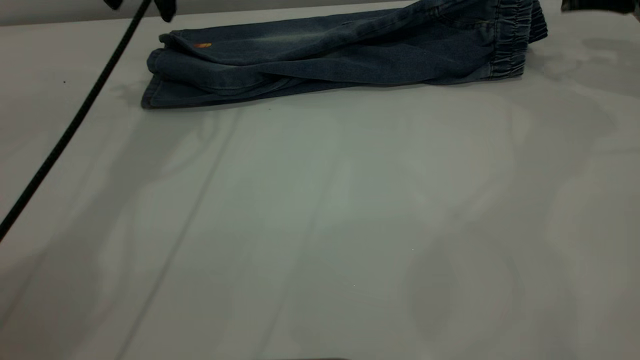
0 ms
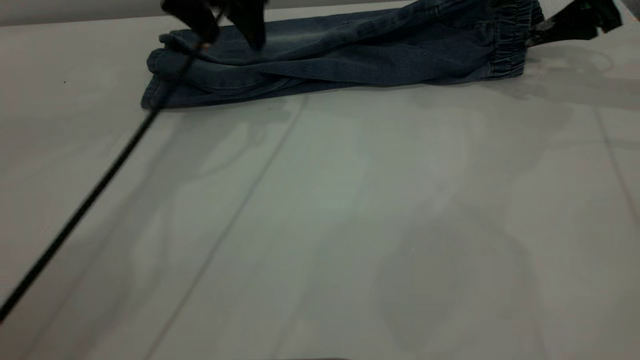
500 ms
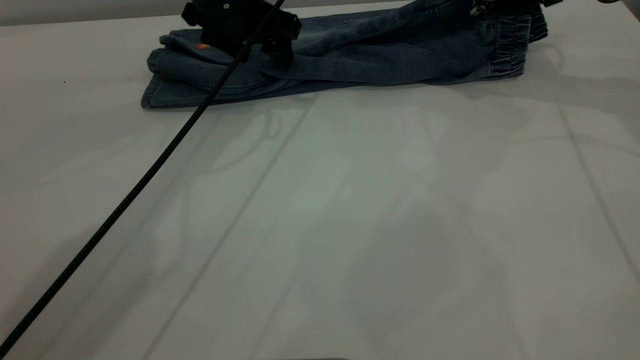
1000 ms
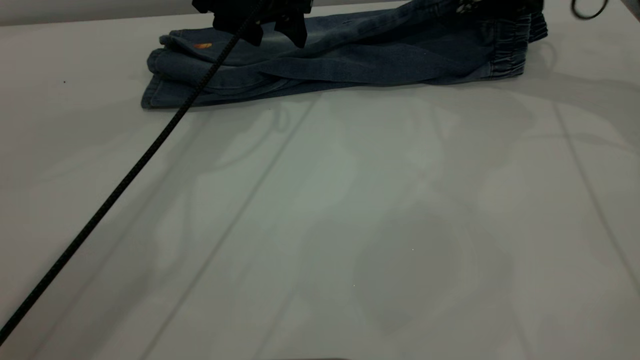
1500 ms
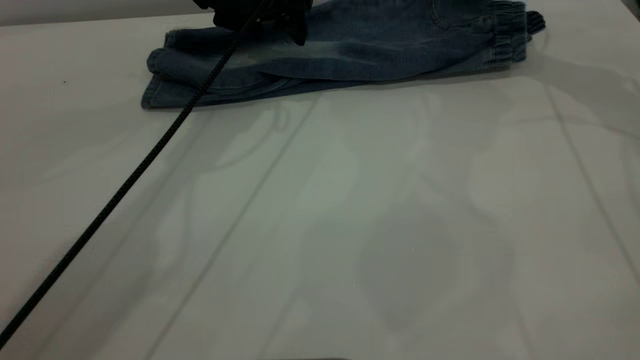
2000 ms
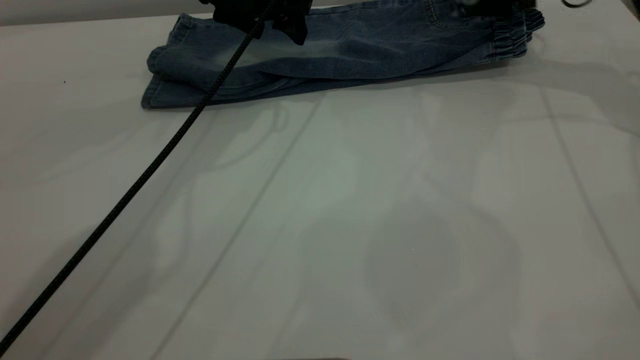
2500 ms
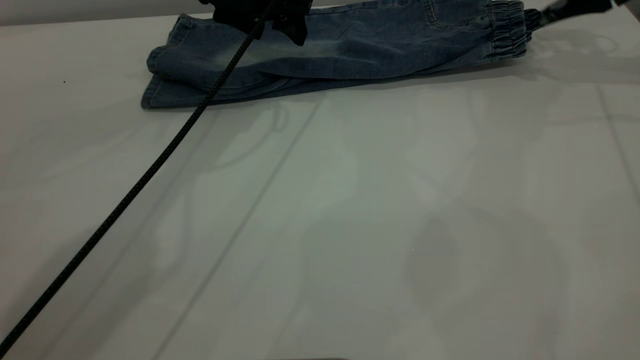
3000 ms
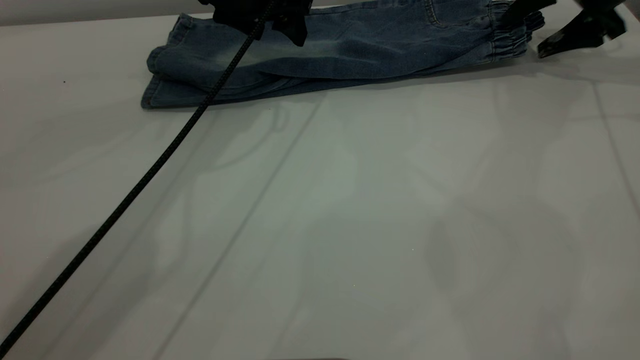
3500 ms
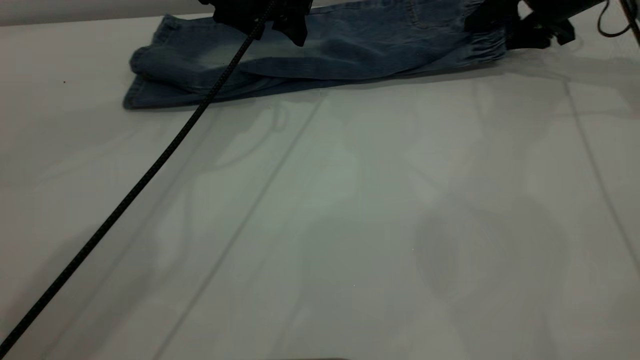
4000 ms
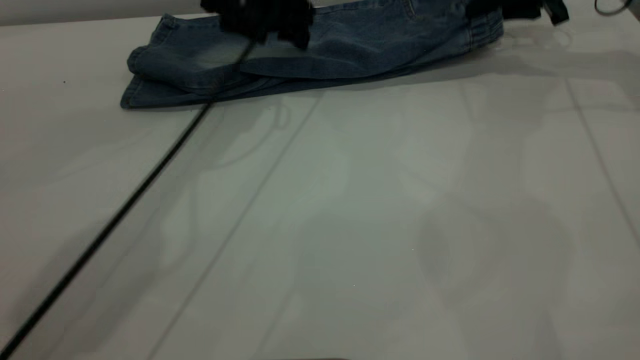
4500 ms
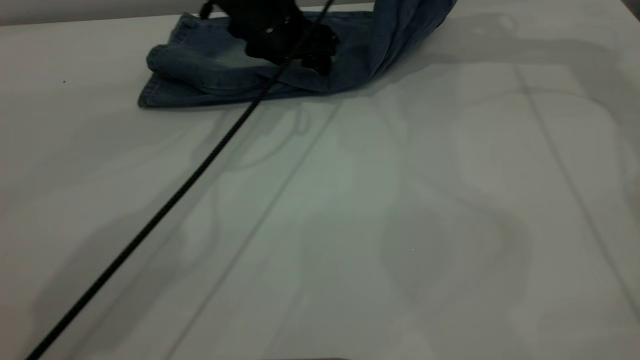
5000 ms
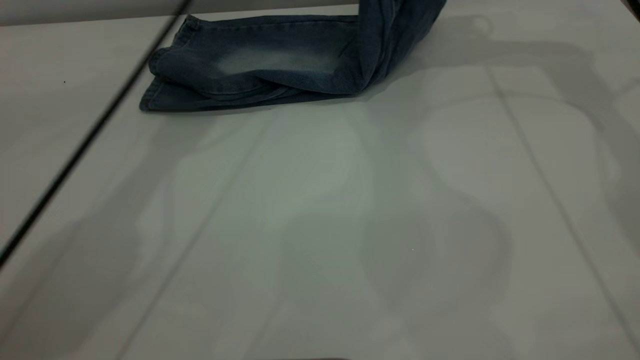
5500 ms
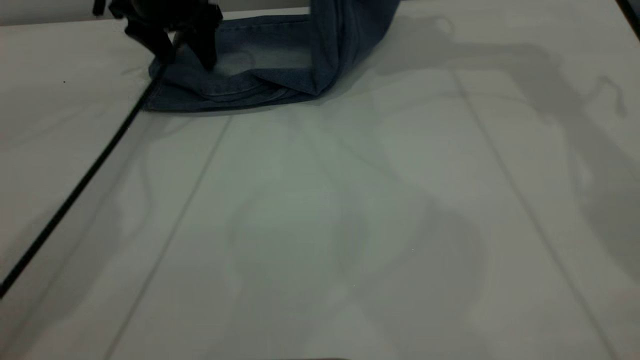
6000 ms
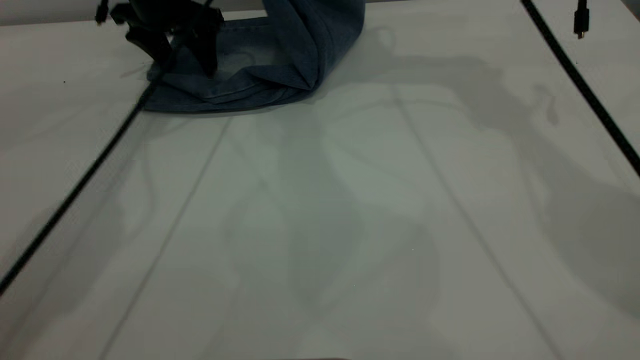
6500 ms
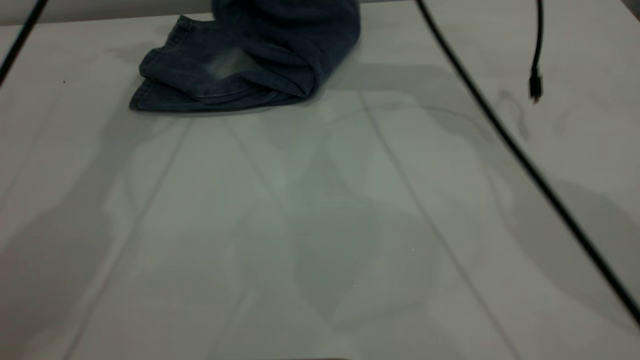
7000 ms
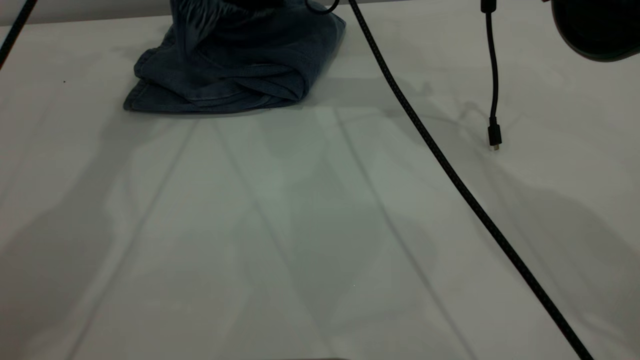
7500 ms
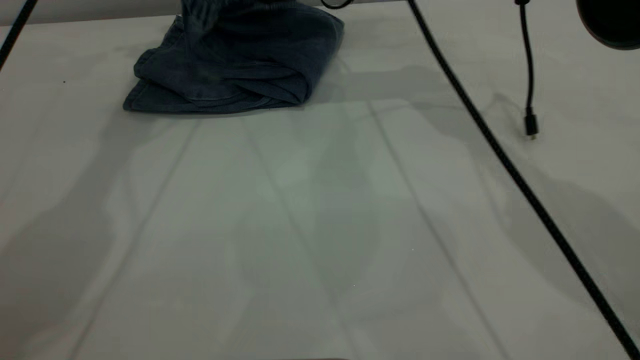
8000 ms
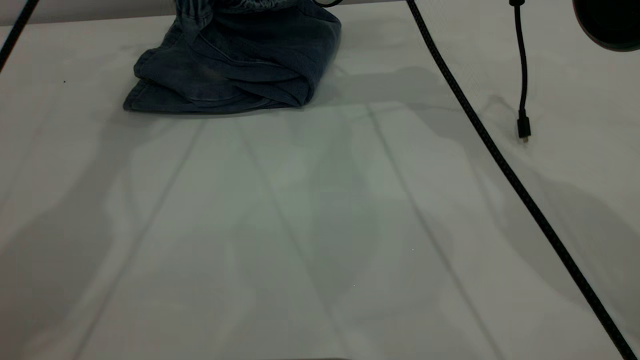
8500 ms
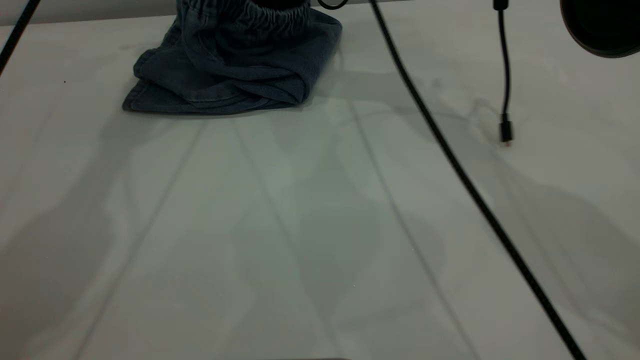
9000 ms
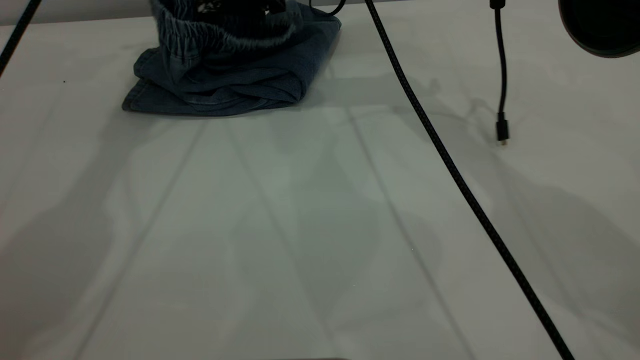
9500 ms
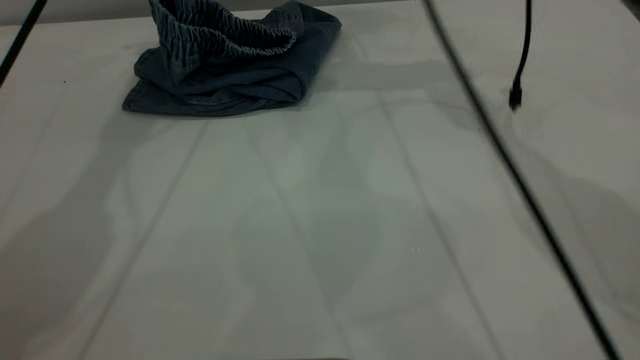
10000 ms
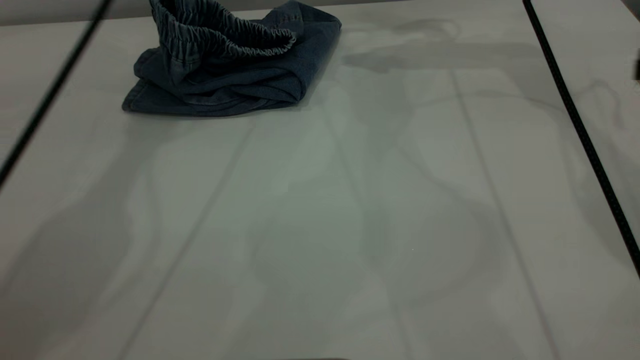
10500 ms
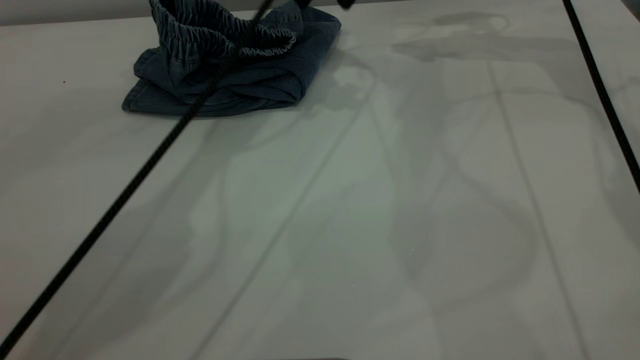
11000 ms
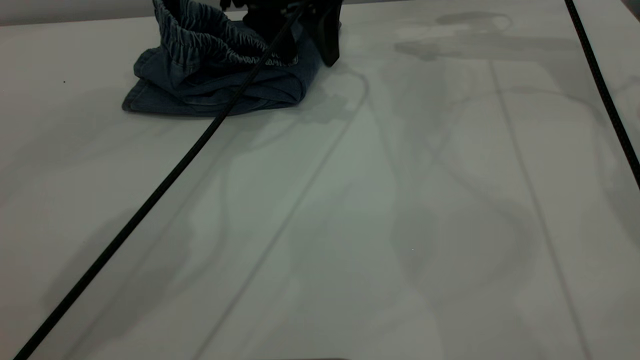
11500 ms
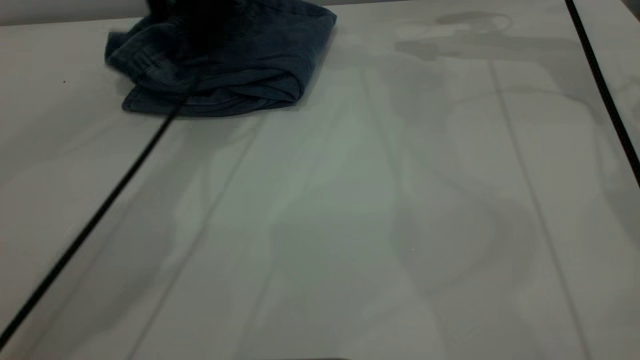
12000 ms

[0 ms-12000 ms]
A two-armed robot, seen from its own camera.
Step, 0 ms to 10000 ms: Fold your pants from right to left.
0 ms to 2000 ms: The right gripper goes some 15 cm to the left and forward. The left gripper is displaced to the right and downward by roughly 10 cm.
2000 ms to 4000 ms: The right gripper moves downward, some 5 cm, and closes.
4000 ms to 6000 ms: The right gripper is displaced upward and to the left by roughly 25 cm, and closes its fingers. Meanwhile the left gripper heads to the left, covering about 10 cm.
6000 ms to 8000 ms: The right gripper moves to the left and downward, some 15 cm, and opens its fingers. The left gripper shifts about 20 cm upward.
8000 ms to 10000 ms: The right gripper moves roughly 5 cm.
10000 ms to 12000 ms: The right gripper heads to the right, covering some 15 cm, while the left gripper is displaced downward and to the right by about 15 cm.

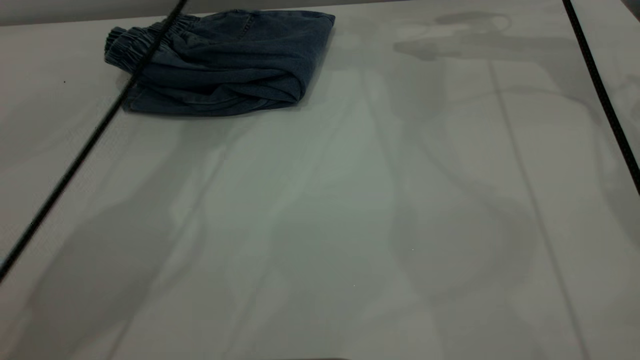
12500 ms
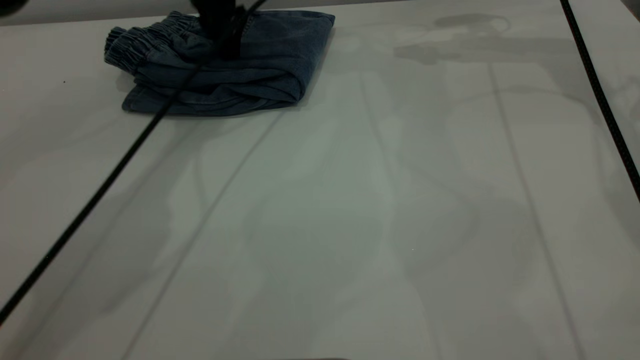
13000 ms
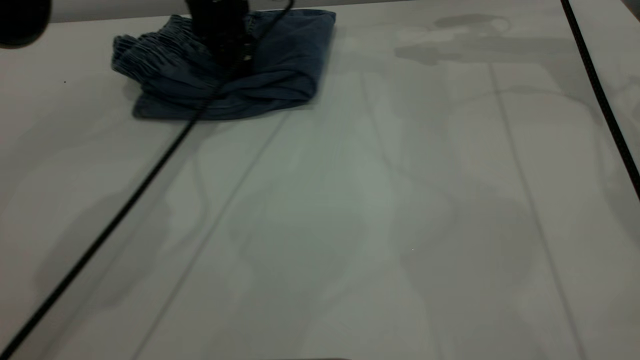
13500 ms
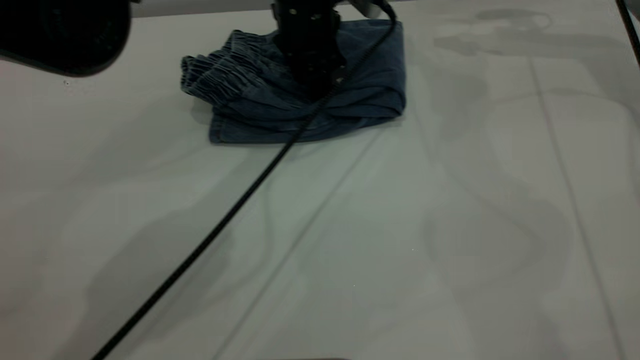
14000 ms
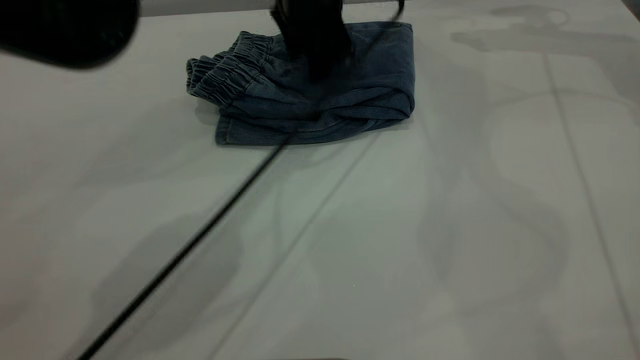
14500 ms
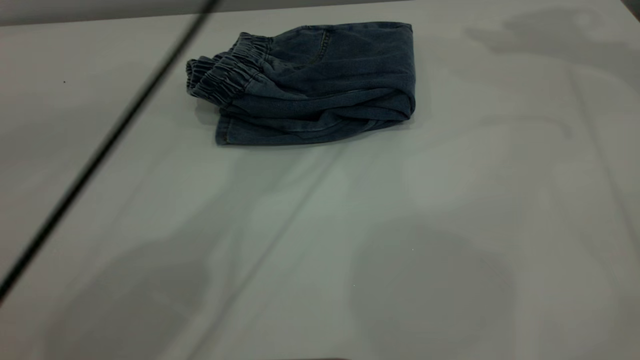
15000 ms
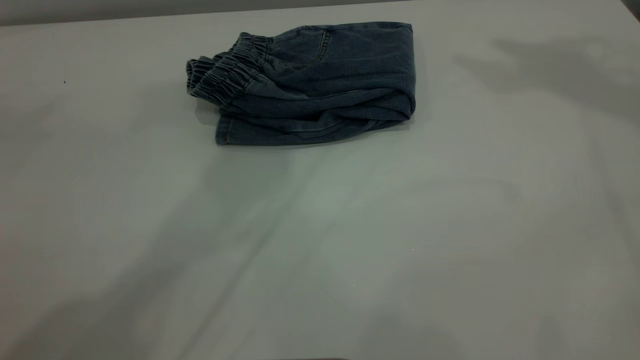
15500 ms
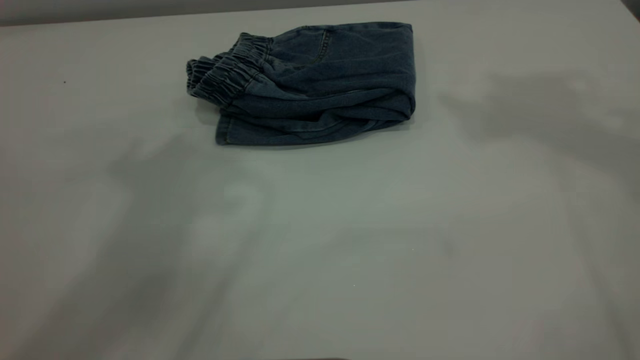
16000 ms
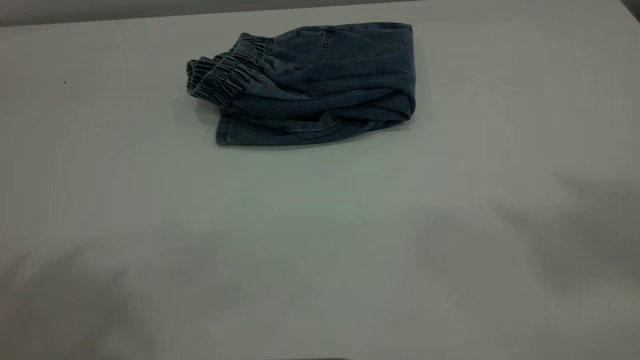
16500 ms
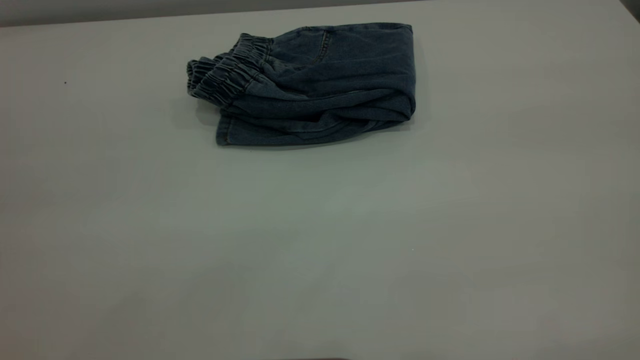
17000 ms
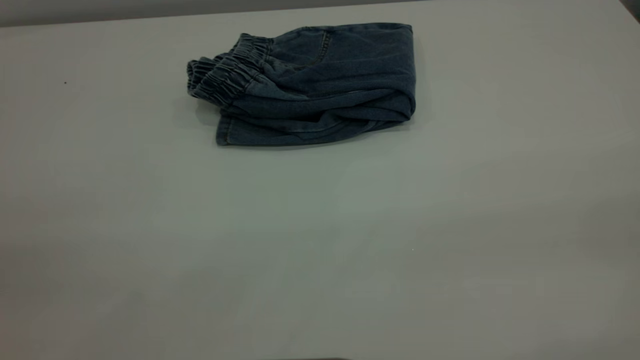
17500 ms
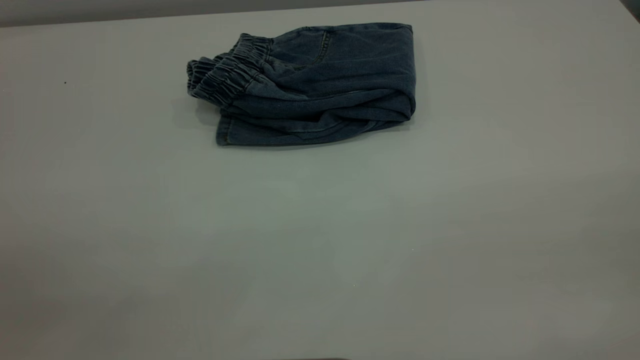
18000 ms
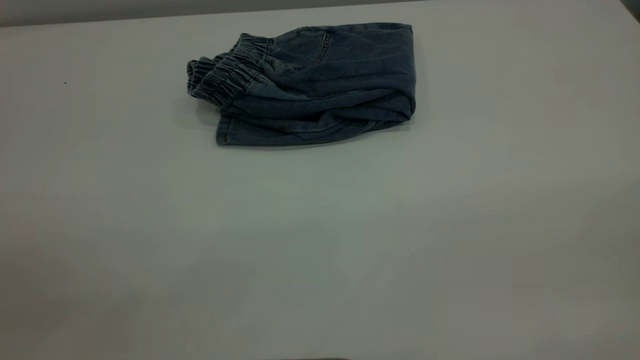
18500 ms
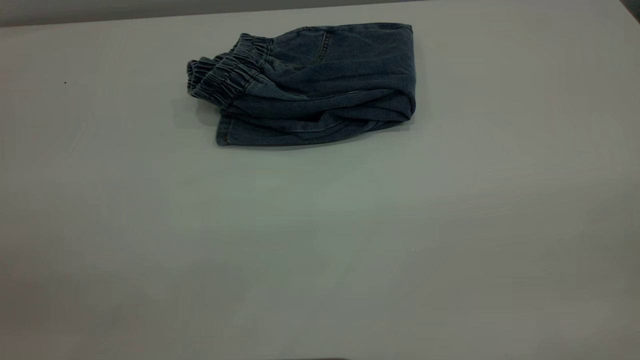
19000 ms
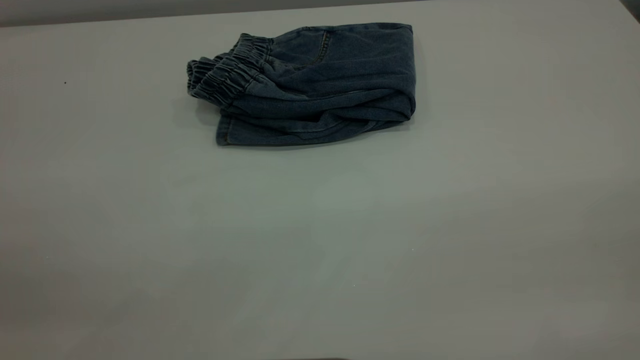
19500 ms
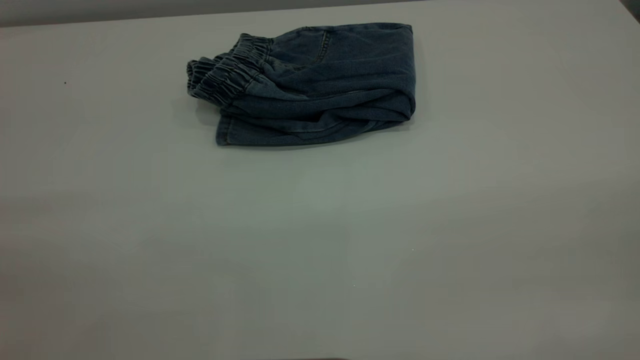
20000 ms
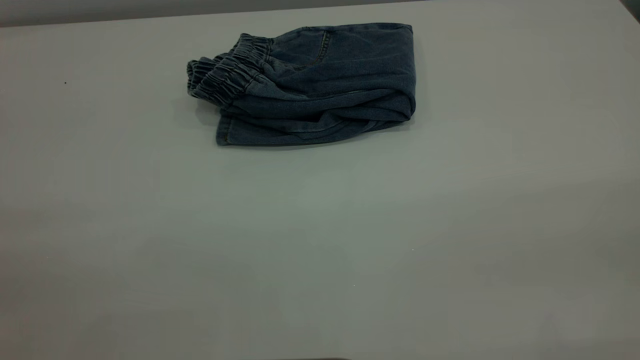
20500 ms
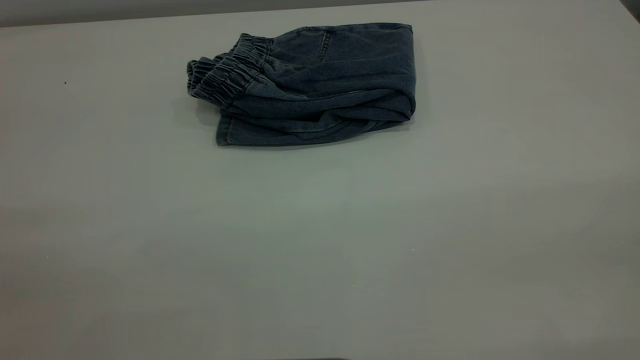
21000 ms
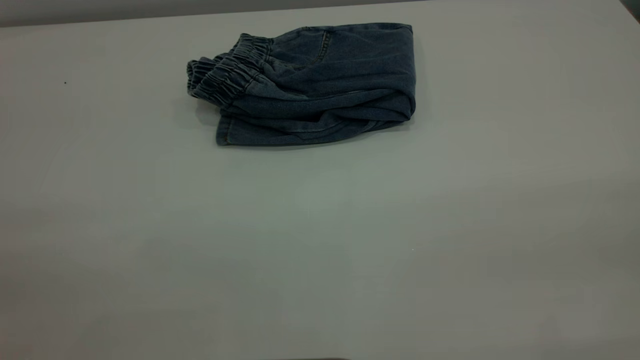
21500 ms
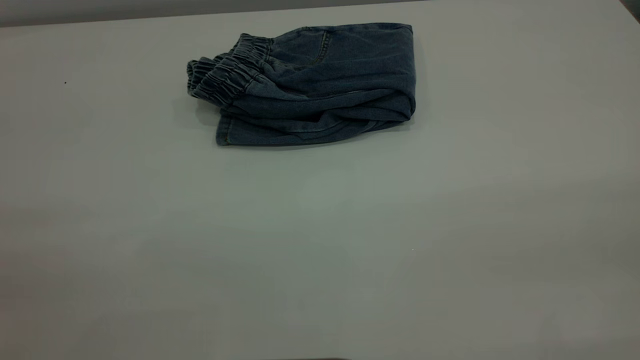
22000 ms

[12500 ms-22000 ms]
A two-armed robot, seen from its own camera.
12500 ms to 14500 ms: The left gripper goes roughly 15 cm to the right and downward. Meanwhile the right gripper goes some 5 cm to the right.
14500 ms to 16500 ms: The right gripper moves backward and upward, roughly 50 cm. The left gripper is displaced upward, backward and to the left by approximately 50 cm.
